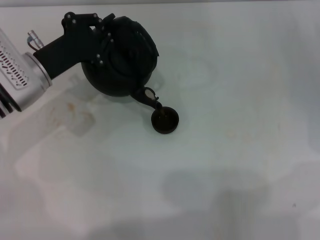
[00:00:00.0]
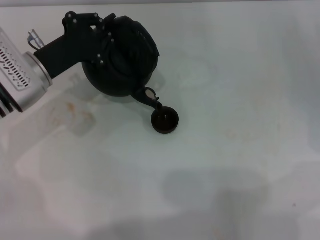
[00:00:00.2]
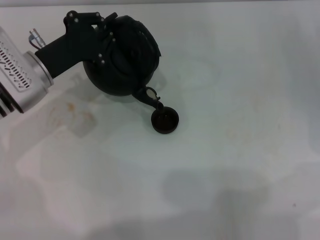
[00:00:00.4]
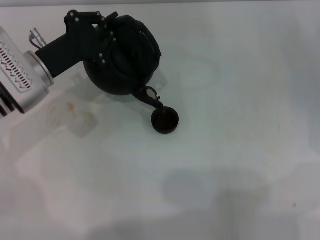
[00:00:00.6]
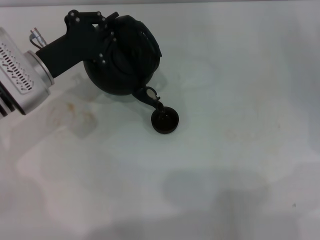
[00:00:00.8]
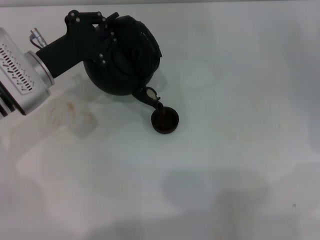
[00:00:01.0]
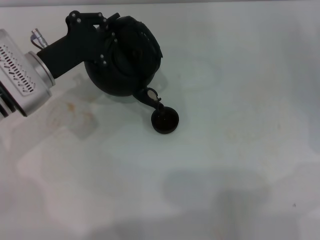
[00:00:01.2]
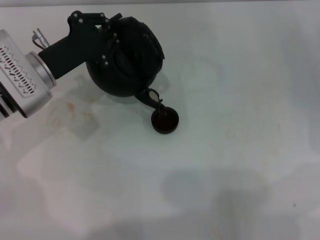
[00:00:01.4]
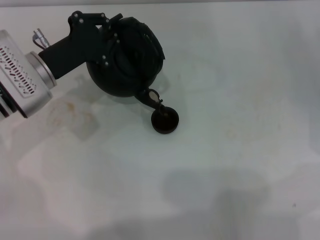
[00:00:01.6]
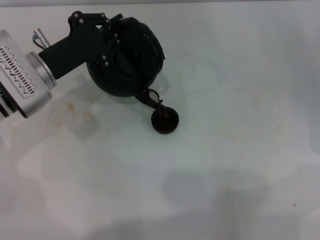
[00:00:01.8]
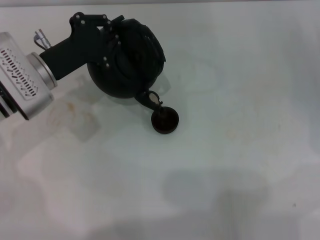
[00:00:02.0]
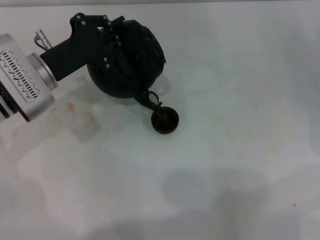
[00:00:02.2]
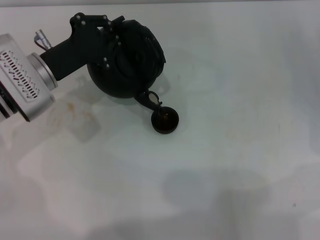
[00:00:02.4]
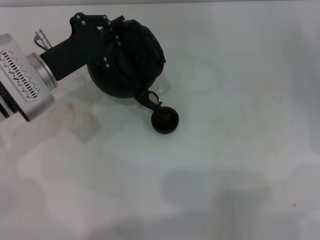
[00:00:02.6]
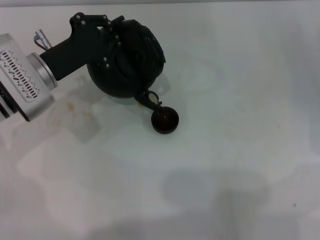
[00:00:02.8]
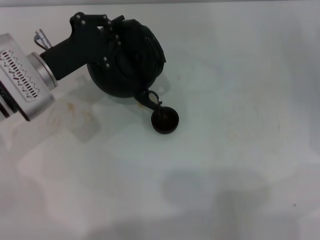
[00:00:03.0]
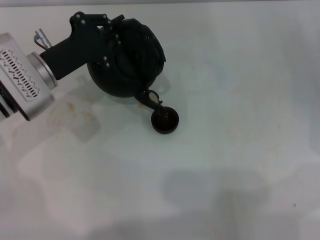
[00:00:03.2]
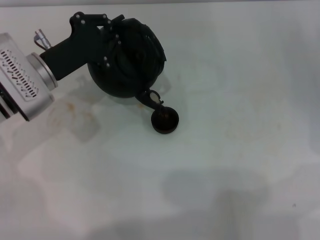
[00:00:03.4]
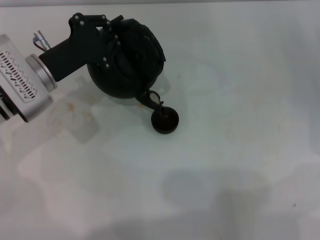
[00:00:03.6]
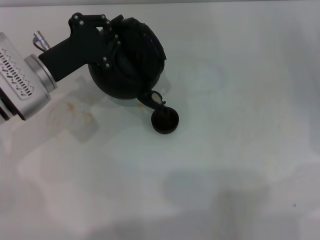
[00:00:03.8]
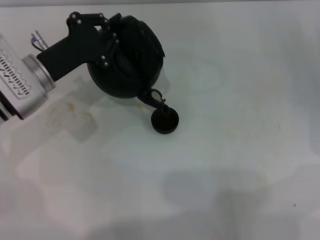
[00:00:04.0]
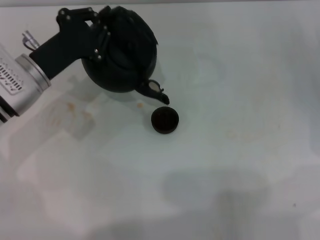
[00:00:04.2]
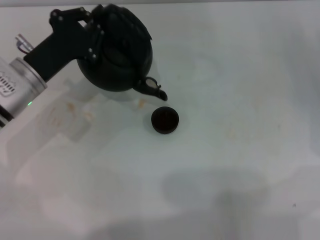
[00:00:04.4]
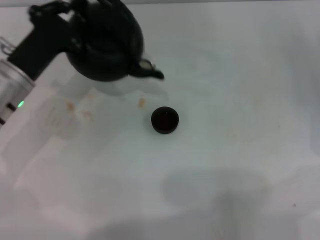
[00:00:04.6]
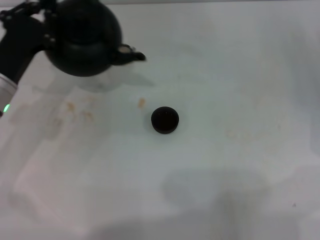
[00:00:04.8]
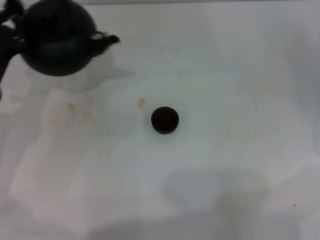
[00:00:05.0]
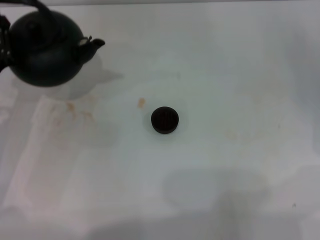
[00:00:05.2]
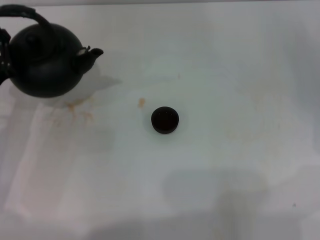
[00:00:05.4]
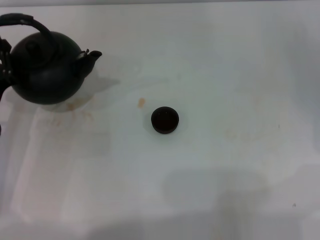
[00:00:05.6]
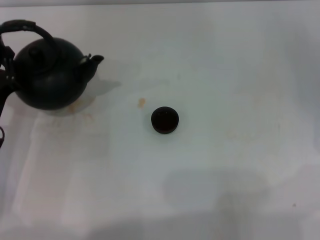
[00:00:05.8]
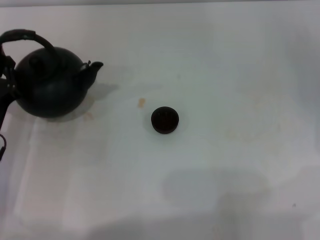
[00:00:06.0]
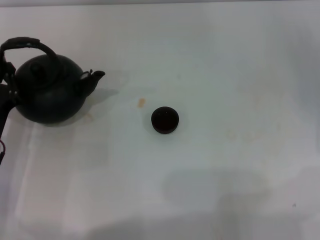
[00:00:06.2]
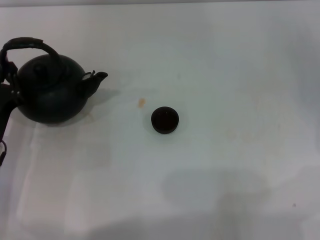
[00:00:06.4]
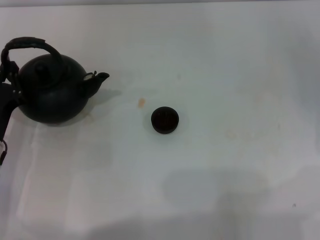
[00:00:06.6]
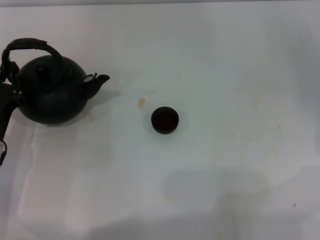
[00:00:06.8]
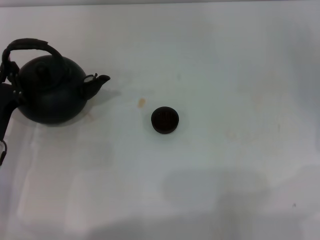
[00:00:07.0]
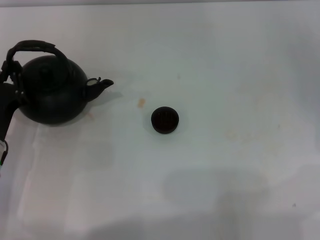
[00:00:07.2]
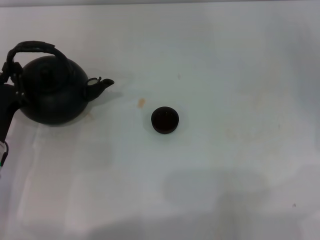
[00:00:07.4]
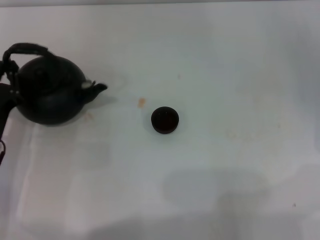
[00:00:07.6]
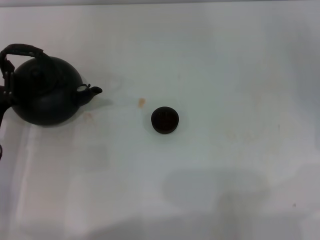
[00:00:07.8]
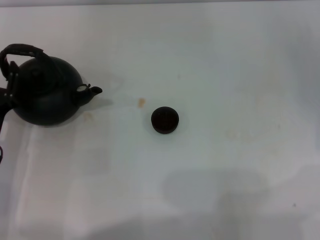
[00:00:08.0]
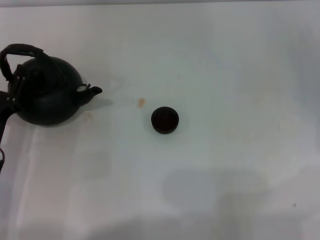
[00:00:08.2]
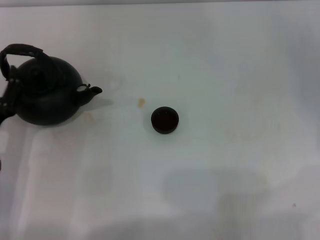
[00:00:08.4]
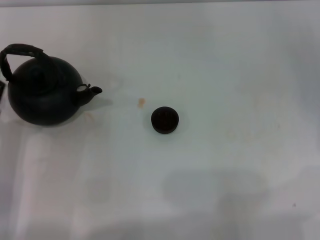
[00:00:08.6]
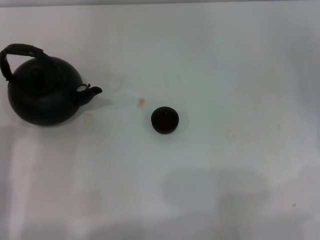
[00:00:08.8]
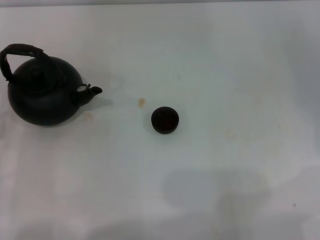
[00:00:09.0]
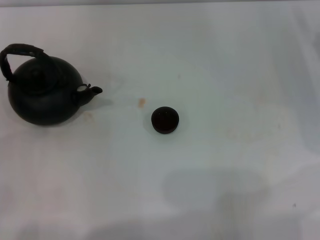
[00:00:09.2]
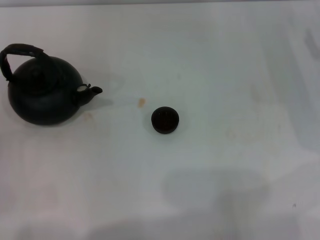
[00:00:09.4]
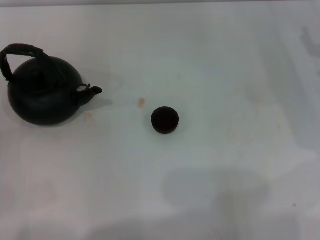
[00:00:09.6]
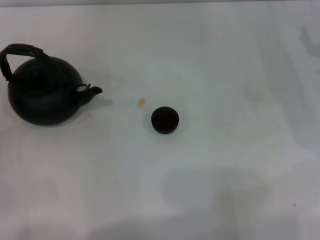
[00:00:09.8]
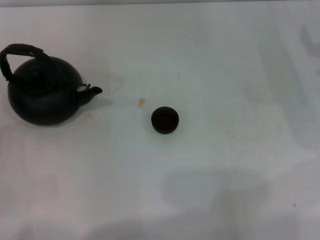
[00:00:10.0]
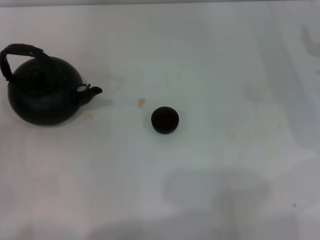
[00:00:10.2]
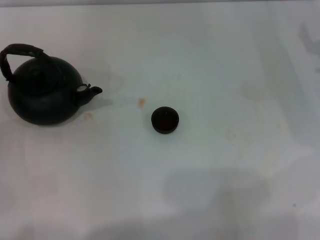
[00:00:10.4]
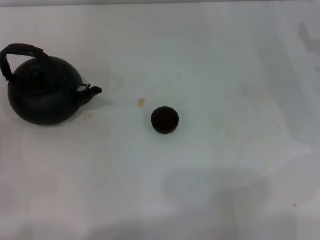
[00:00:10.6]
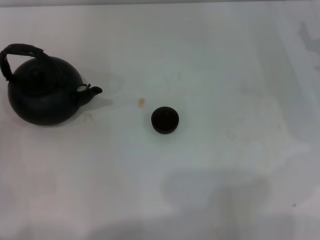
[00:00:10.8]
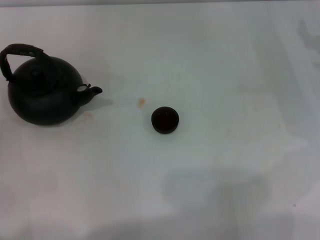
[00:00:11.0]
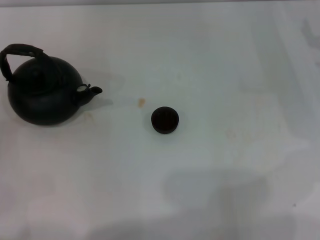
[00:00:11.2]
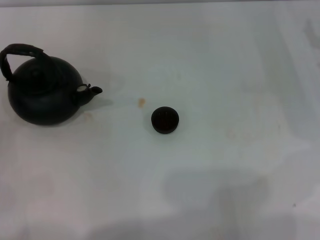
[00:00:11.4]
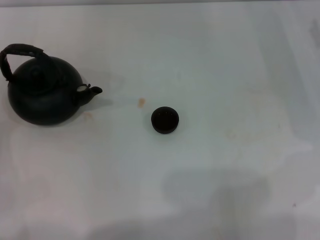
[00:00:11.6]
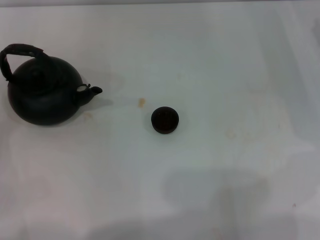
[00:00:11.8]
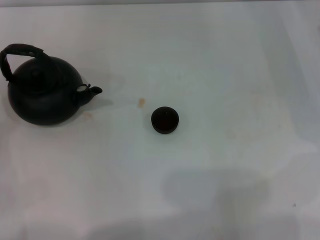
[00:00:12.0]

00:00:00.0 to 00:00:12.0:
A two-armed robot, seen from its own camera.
Task of the whole recording: Grasp the handle of the teapot with one hand and pour tea into the teacup.
Step, 00:00:00.0 to 00:00:04.6: Pour tea into the teacup with the left gripper.
Step, 00:00:04.8 to 00:00:08.2: Put down the teapot with the left gripper.
00:00:00.0 to 00:00:01.6: The grippers stay close to where they were, moving slightly.
00:00:01.6 to 00:00:03.0: Both grippers stay put.
00:00:03.0 to 00:00:04.4: The grippers stay close to where they were, moving slightly.
00:00:04.4 to 00:00:06.0: The left gripper travels backward and downward by approximately 10 cm.
00:00:06.0 to 00:00:07.6: The grippers make only small movements.
00:00:07.6 to 00:00:09.0: The left gripper goes approximately 5 cm backward, and opens its fingers.
